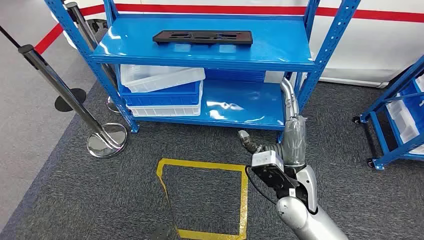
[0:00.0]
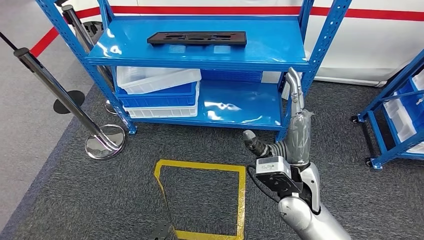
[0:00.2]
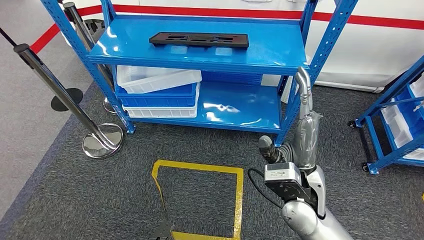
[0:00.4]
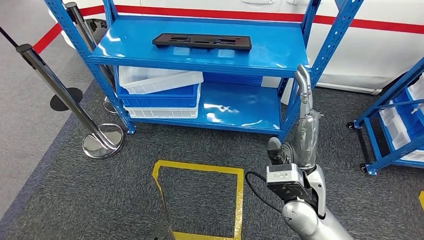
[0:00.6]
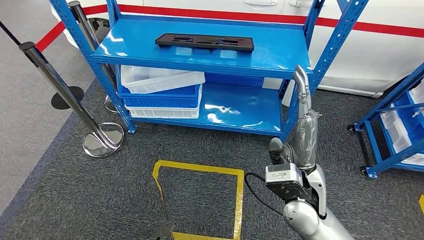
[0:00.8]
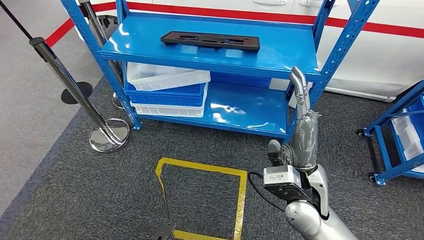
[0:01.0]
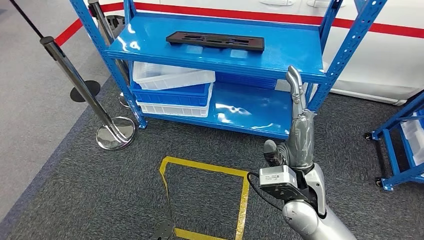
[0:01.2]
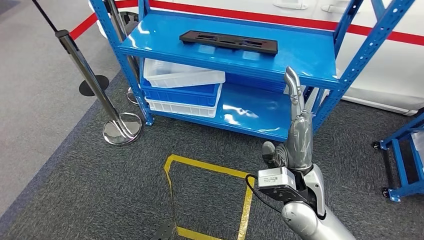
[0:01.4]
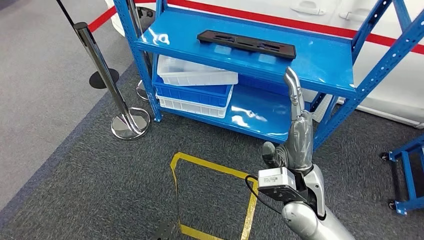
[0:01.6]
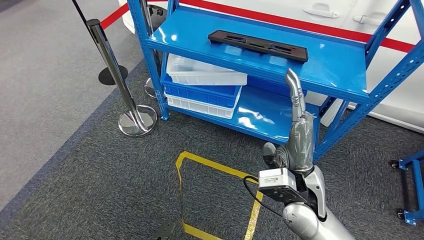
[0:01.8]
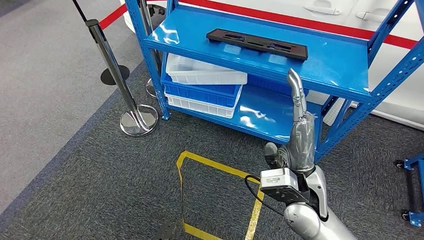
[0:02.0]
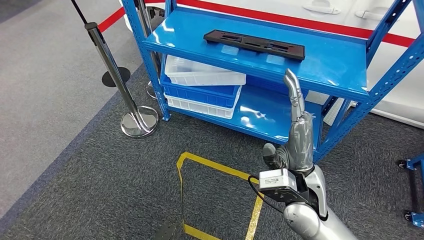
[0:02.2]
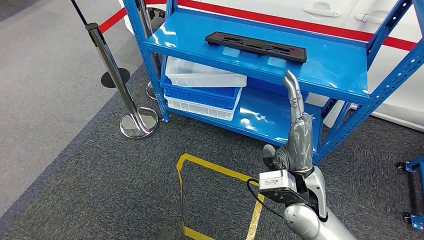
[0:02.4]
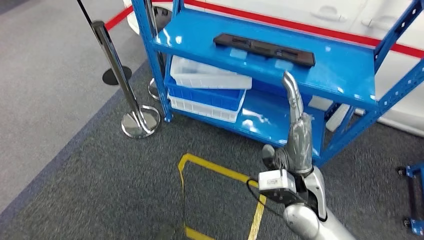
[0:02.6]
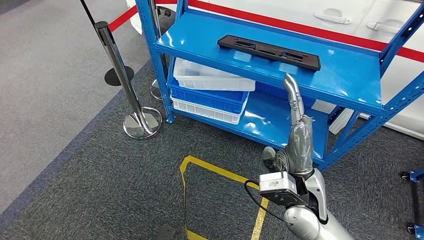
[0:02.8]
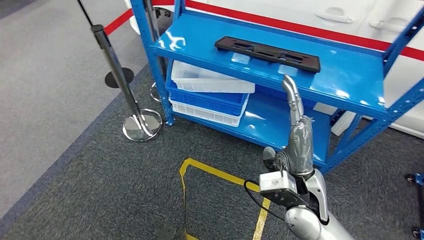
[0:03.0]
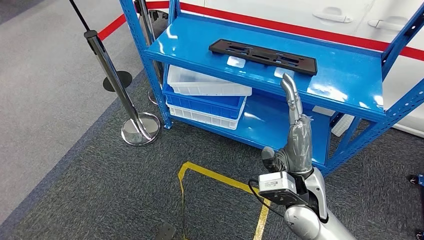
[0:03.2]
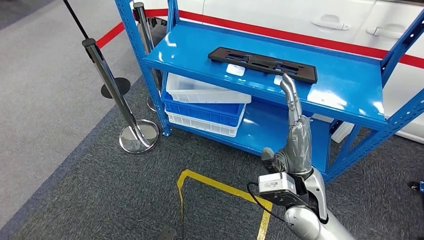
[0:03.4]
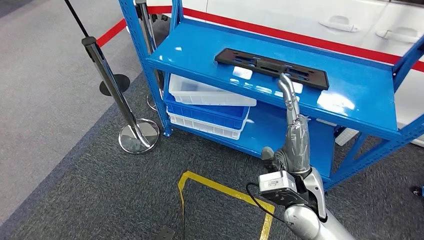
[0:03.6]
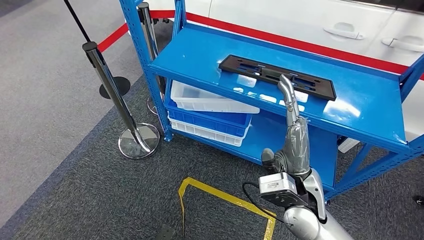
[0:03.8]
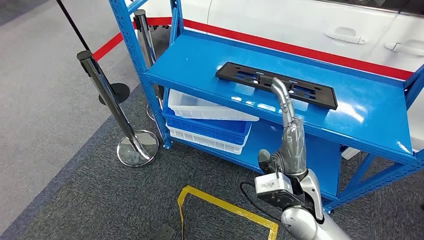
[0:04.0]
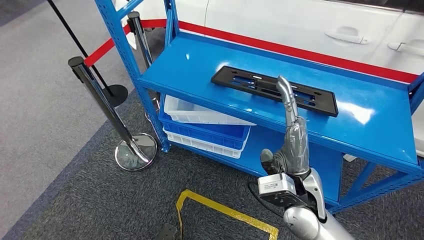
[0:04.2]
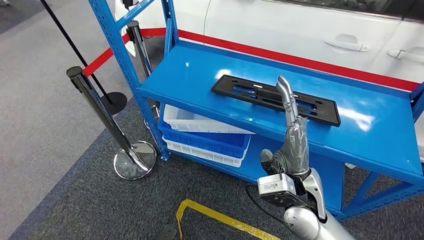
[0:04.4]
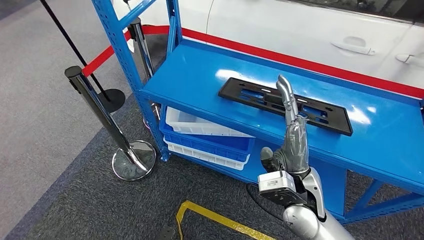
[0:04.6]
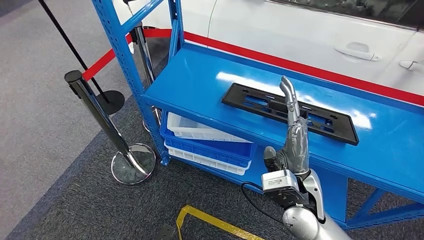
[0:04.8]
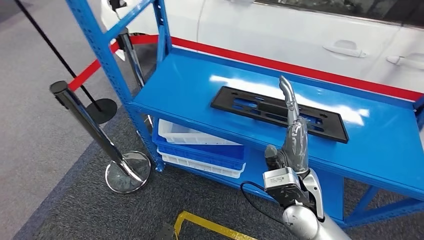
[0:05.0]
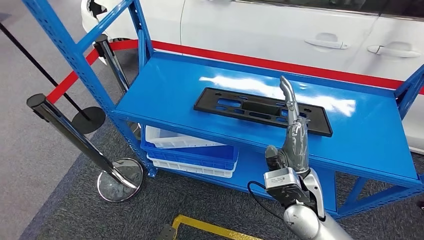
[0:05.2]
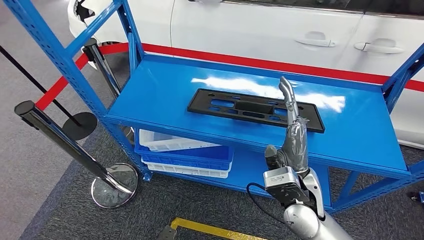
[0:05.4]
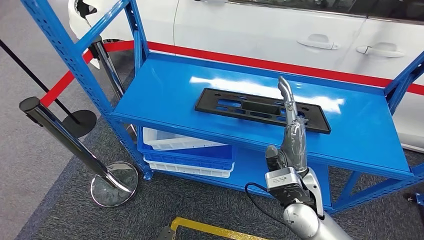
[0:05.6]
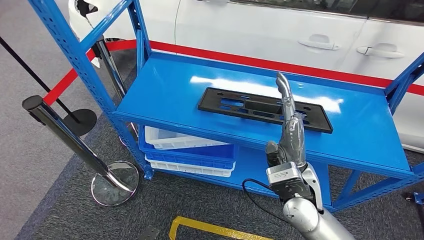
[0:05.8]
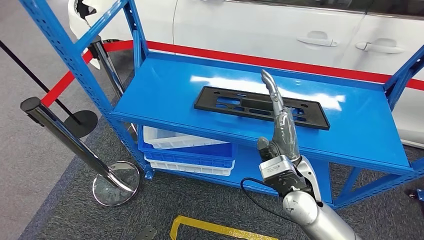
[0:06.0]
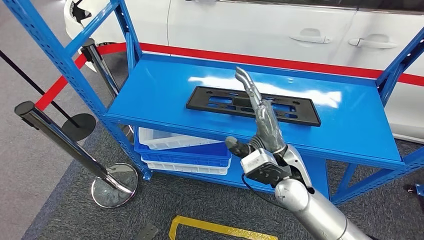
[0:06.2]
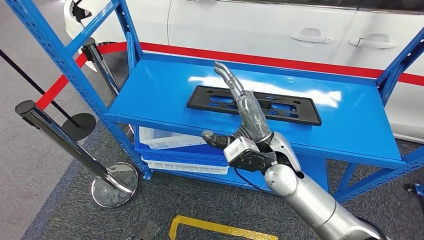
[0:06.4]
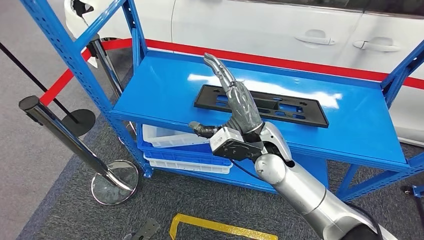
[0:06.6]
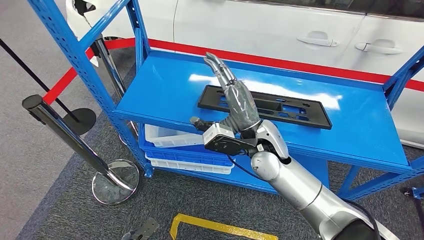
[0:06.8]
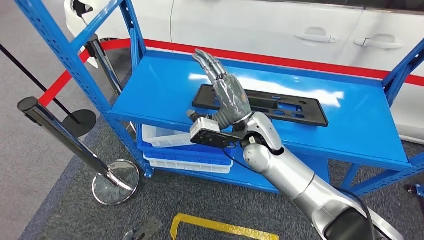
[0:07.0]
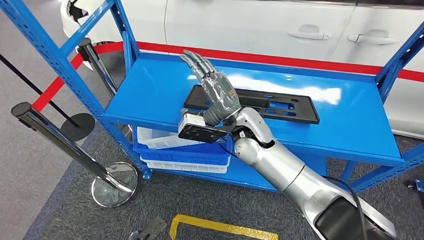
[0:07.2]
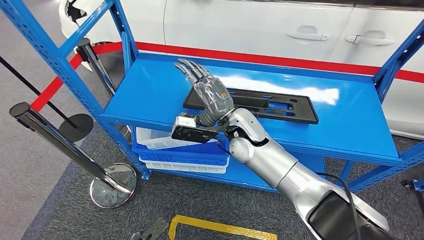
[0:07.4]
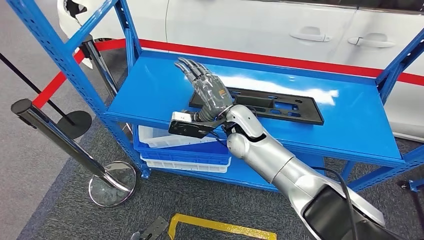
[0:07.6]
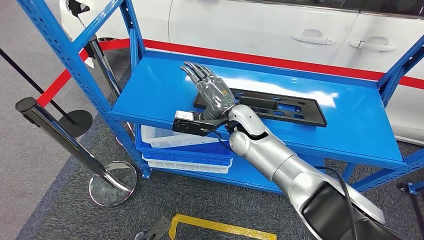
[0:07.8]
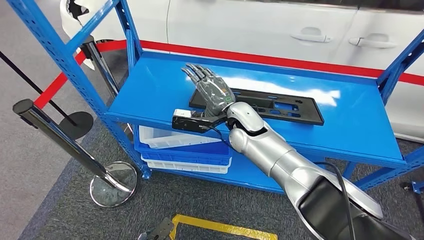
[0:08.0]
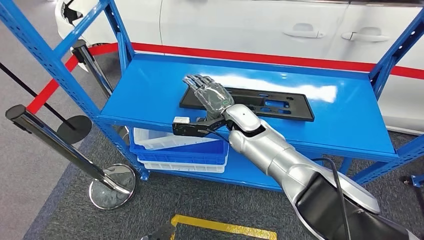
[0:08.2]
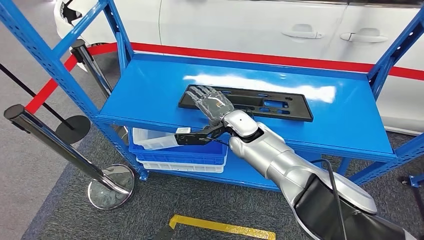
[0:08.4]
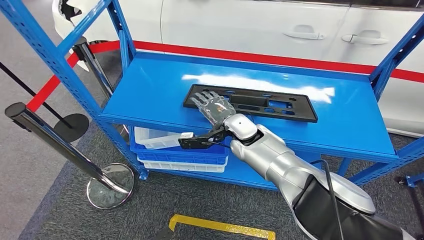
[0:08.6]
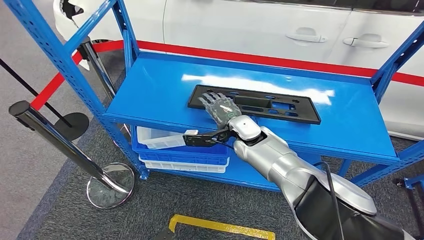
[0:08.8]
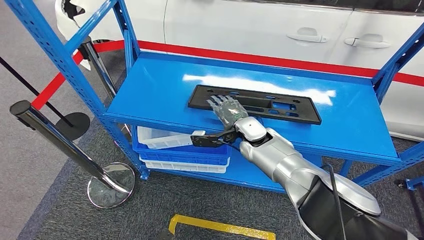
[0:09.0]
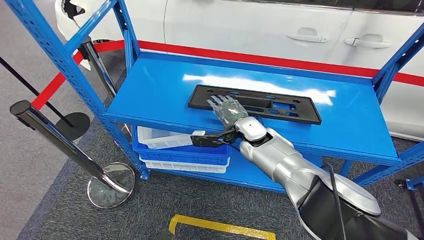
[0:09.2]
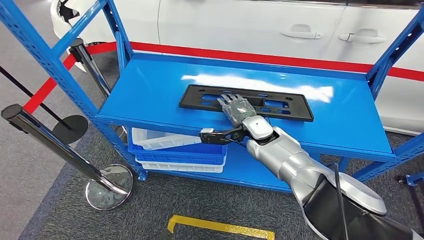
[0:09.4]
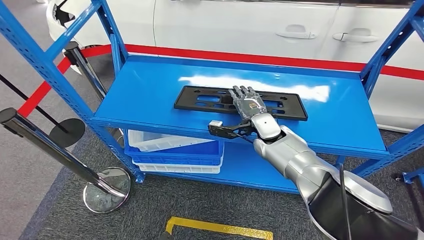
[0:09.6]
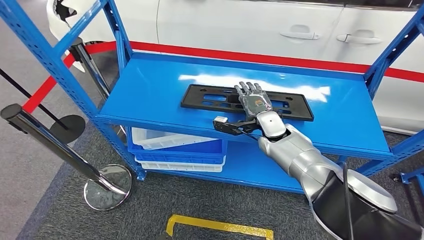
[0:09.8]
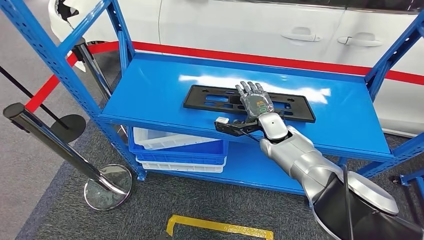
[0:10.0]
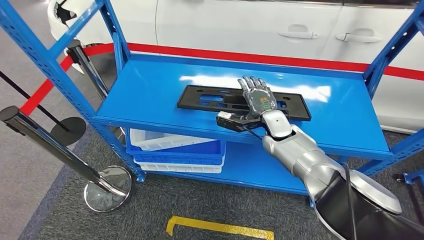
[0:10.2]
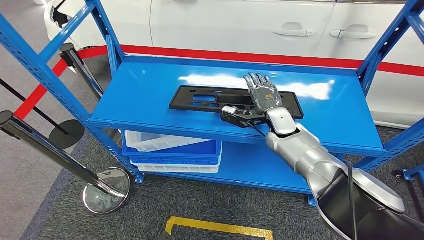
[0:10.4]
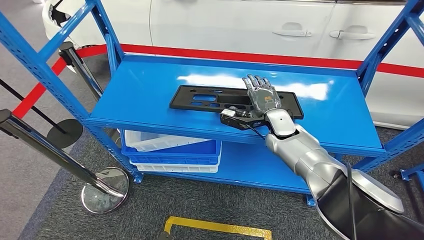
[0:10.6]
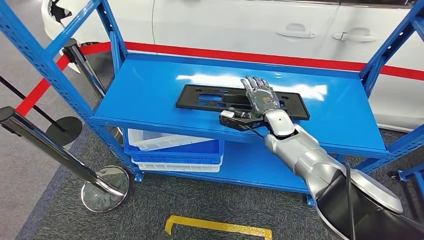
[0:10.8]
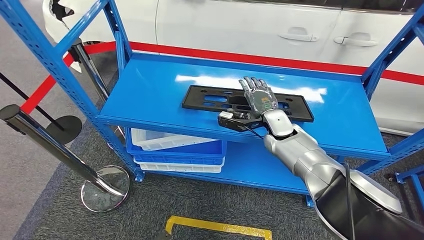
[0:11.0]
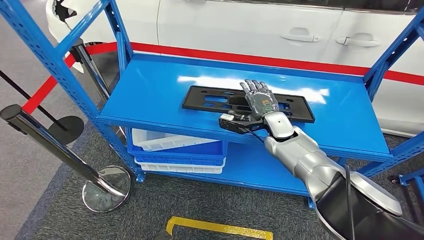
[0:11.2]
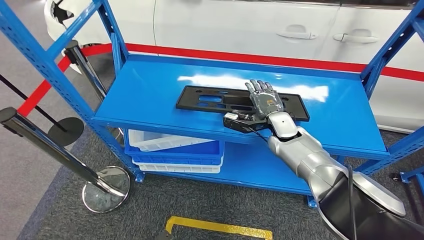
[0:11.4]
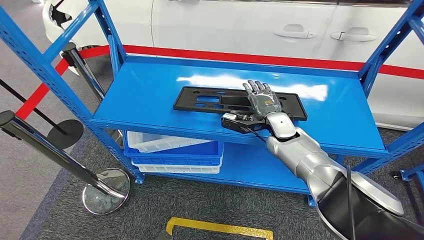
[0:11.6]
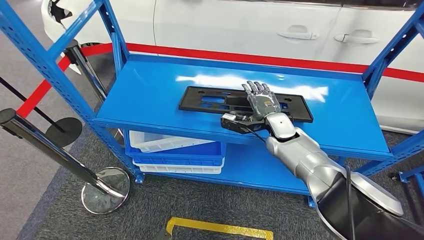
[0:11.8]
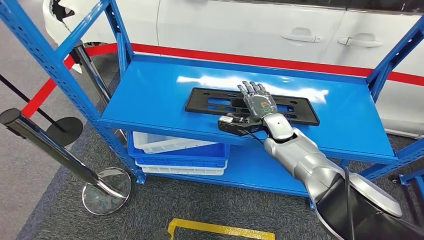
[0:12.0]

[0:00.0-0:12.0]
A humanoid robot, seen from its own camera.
0:07.6 to 0:09.0: The right hand shifts some 10 cm downward and to the right.

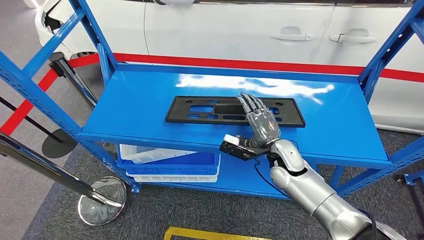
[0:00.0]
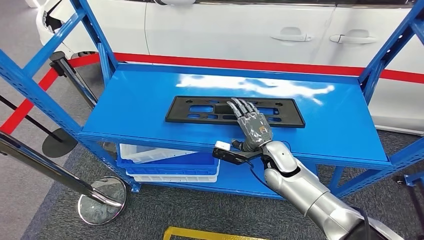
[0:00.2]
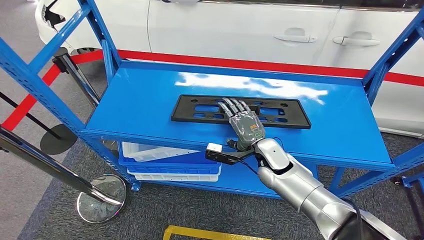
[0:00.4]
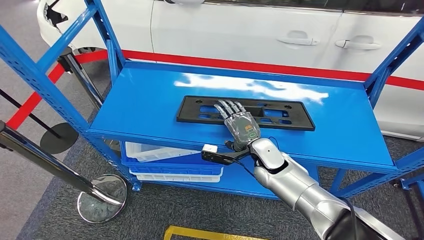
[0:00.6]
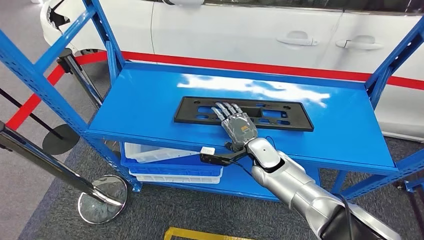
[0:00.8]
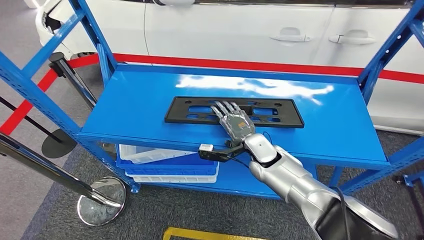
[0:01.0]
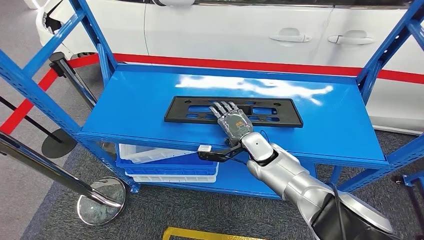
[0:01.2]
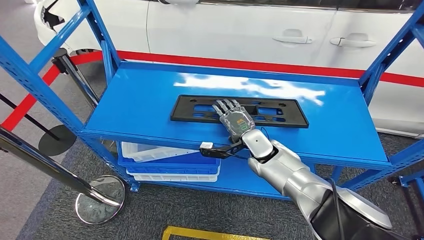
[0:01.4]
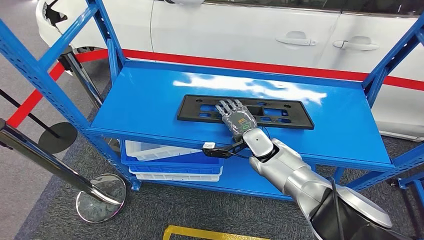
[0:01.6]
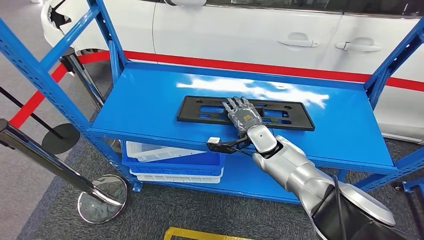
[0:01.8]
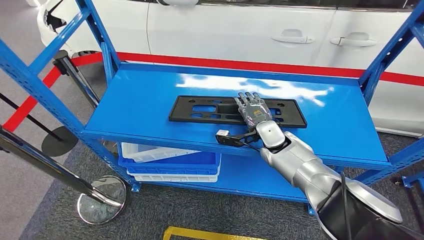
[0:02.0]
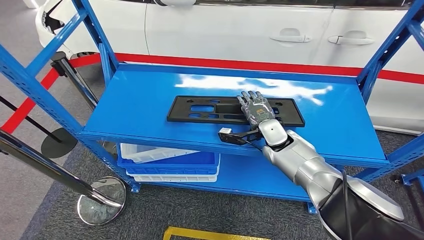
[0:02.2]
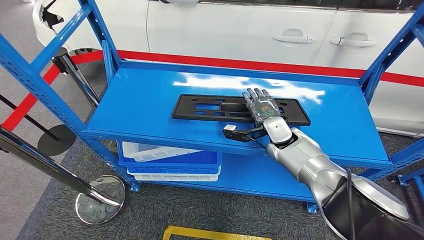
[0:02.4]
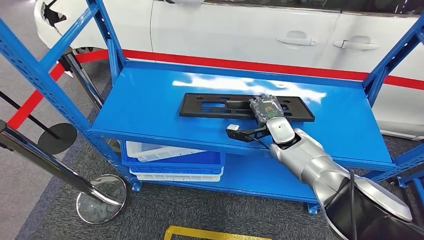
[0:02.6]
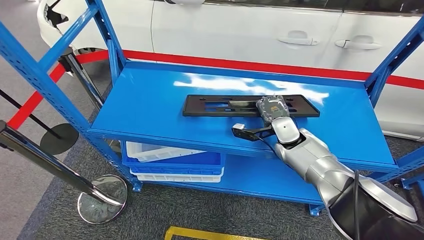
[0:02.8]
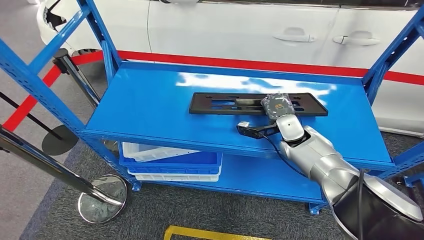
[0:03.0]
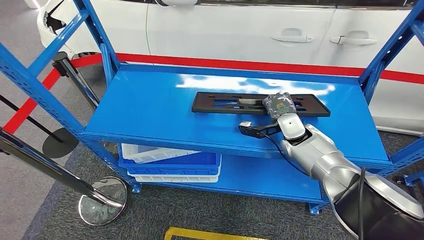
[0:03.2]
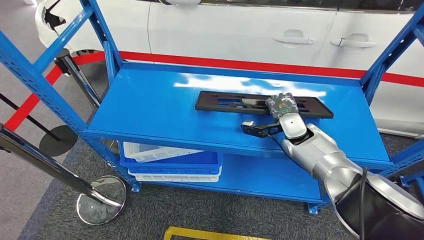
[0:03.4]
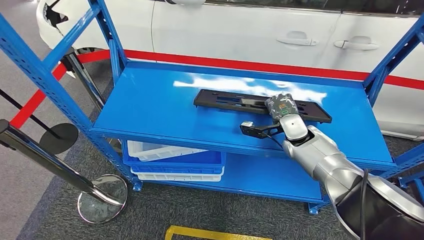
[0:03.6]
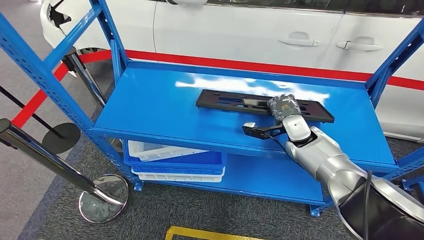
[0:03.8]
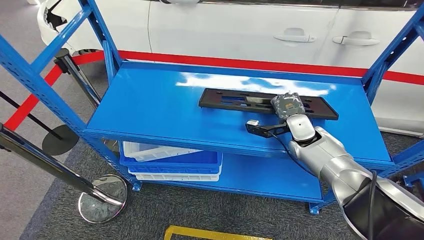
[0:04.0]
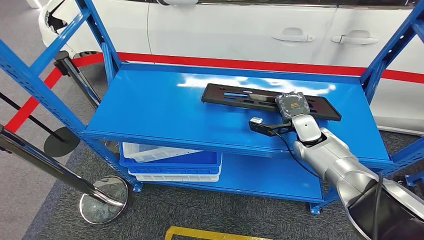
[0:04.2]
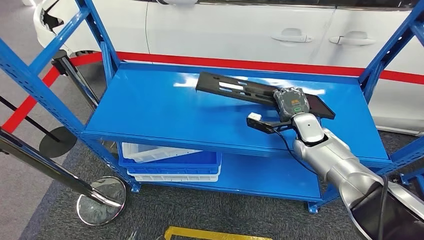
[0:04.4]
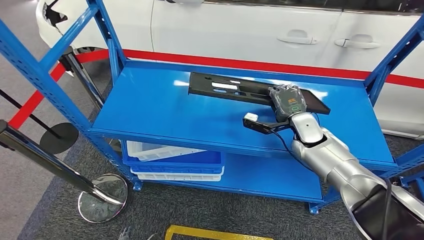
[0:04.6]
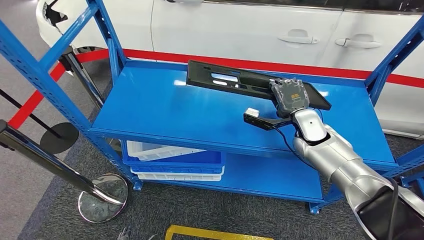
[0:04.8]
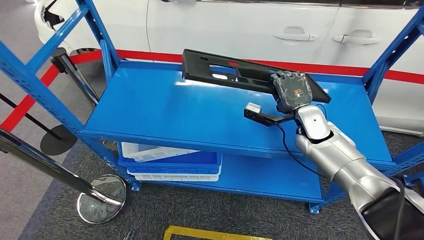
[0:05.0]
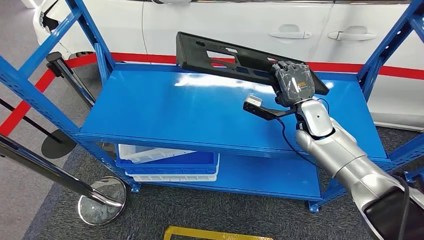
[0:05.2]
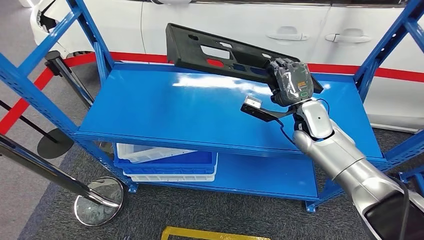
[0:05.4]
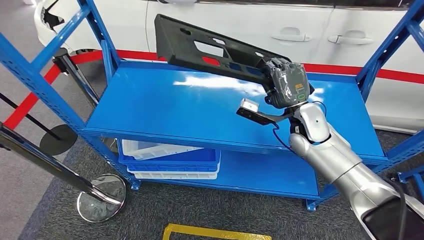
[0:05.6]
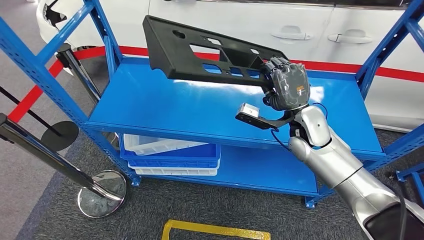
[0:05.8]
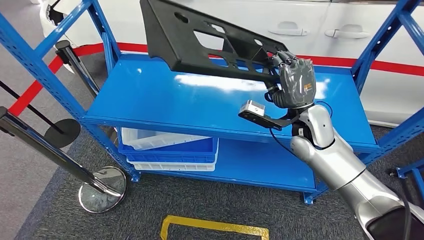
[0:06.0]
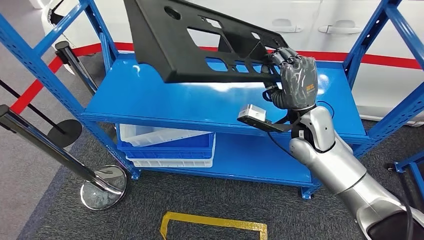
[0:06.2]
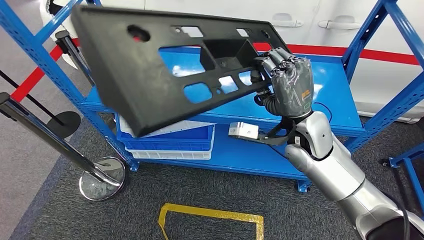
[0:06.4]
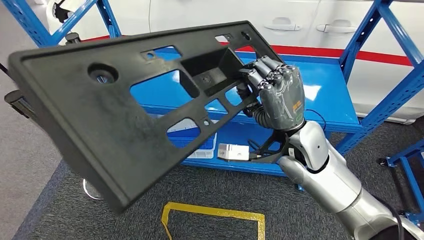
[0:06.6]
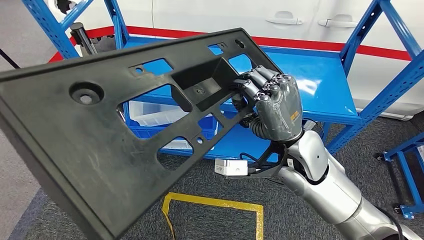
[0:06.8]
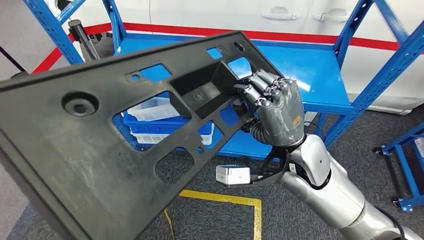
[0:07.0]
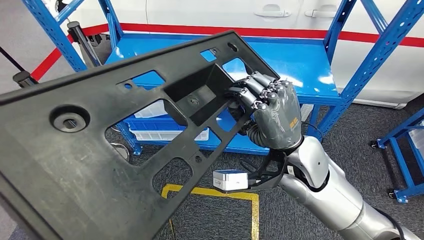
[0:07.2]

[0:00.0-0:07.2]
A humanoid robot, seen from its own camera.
Step, 0:00.0 to 0:04.8: Pick up the large material from the shelf.
